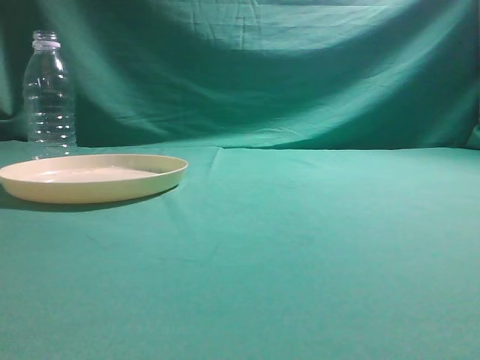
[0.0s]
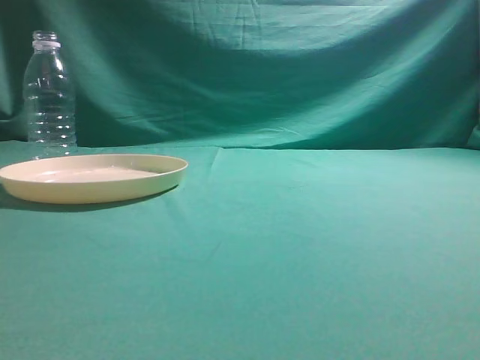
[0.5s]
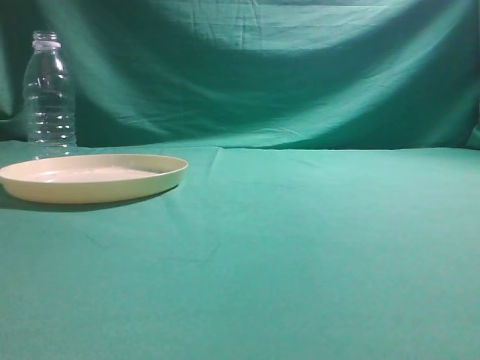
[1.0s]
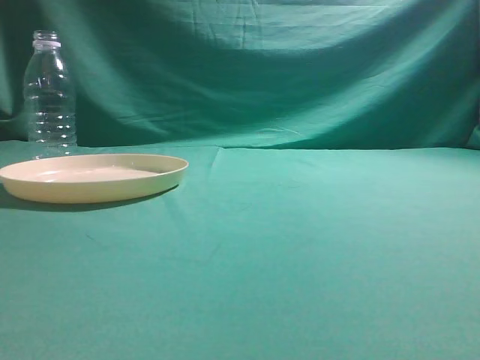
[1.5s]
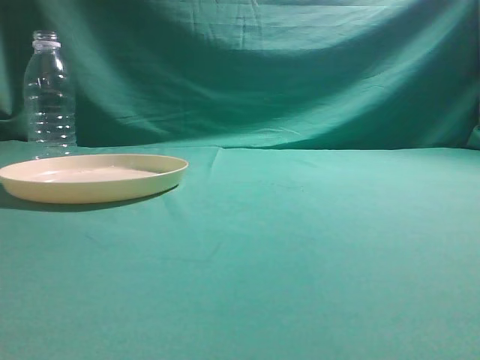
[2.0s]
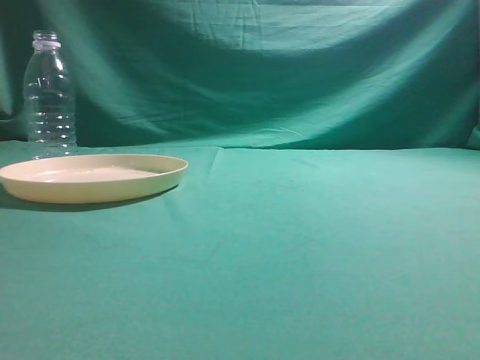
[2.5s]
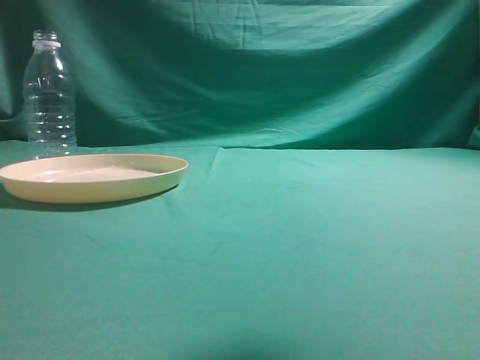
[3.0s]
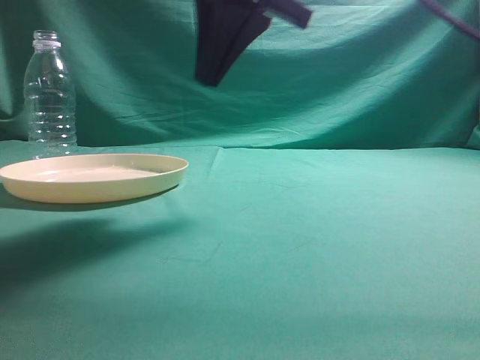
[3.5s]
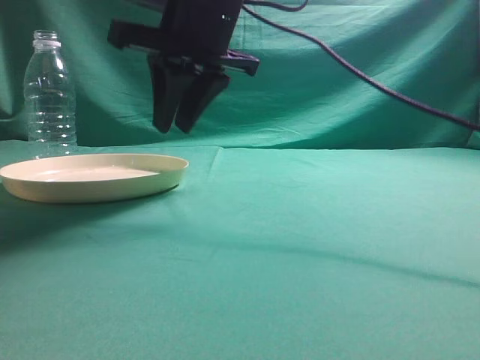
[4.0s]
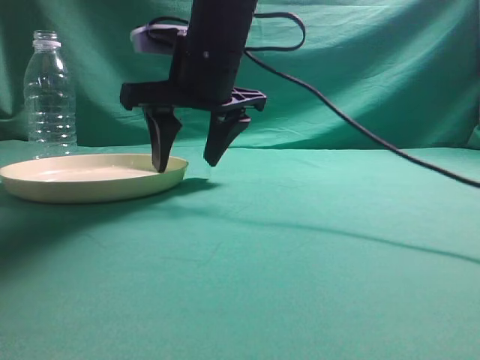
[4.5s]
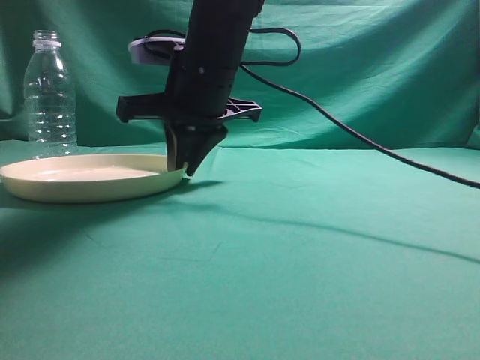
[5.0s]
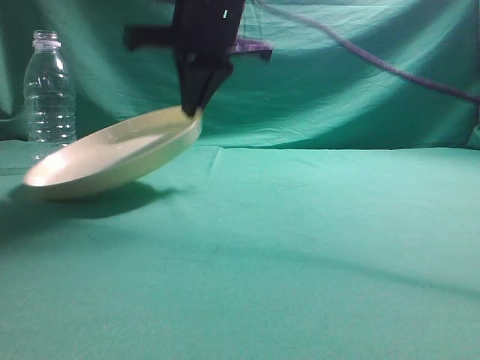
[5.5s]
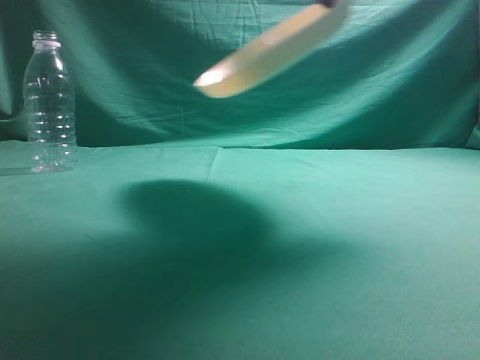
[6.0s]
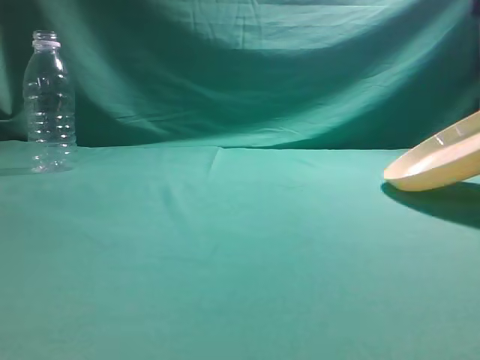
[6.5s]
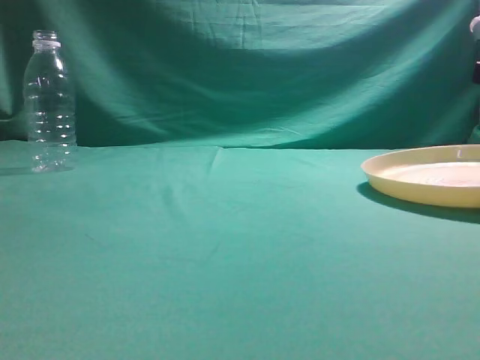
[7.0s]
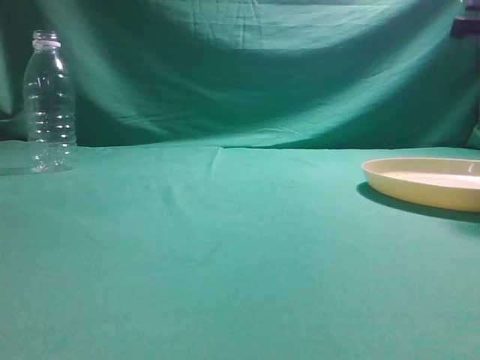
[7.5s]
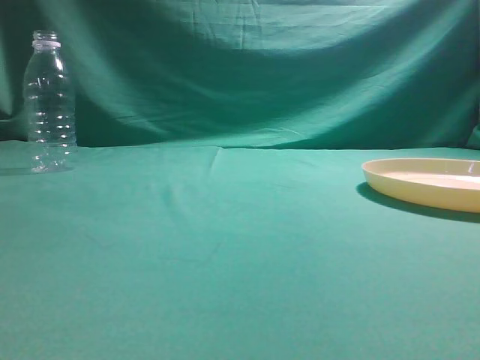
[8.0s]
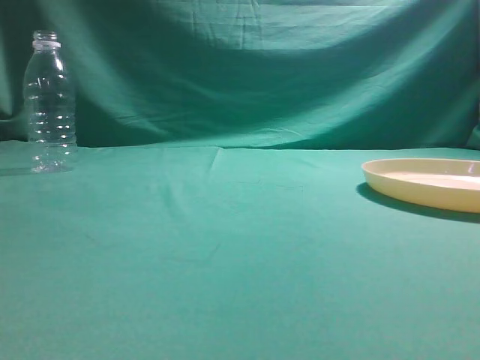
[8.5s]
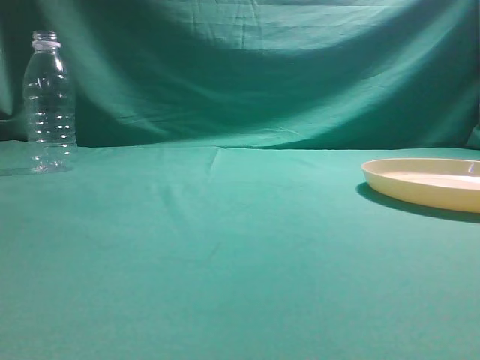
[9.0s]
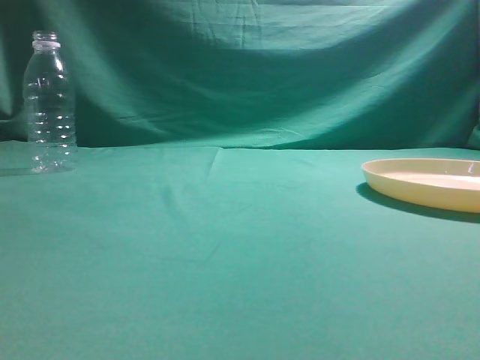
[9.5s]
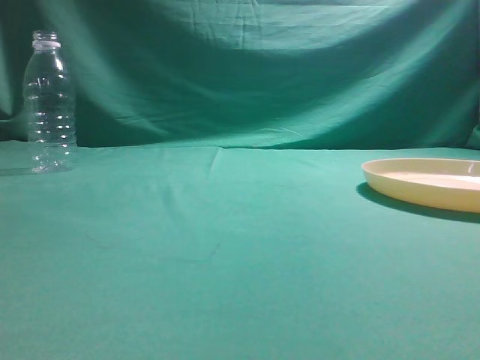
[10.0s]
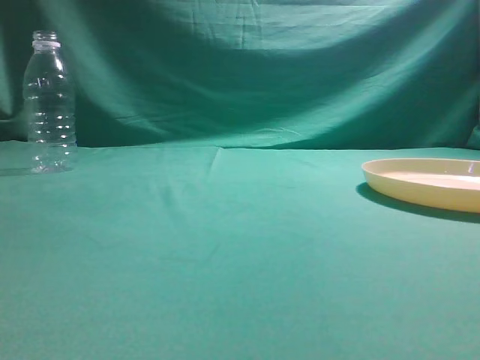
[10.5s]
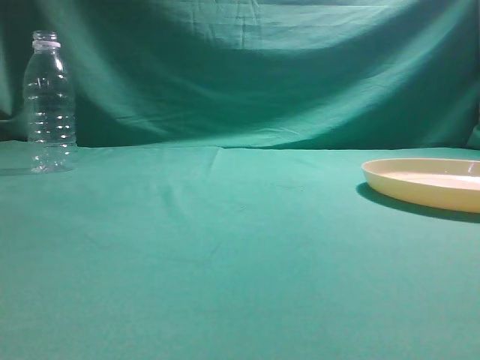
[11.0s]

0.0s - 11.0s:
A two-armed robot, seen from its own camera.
Step, 0.0s - 5.5s: Pick the container that can hold fruits.
Step, 6.0s - 7.5s: Move the picked object to the right side of the table.
2.0s - 3.5s: The right gripper goes approximately 35 cm to the left and forward.
3.5s - 5.5s: The right gripper heads forward, downward and to the left, covering approximately 15 cm, and opens, then closes again.
5.5s - 7.5s: The right gripper goes some 30 cm to the right, and opens up.
7.5s - 9.0s: The right gripper heads backward and upward, covering some 40 cm, and closes up.
